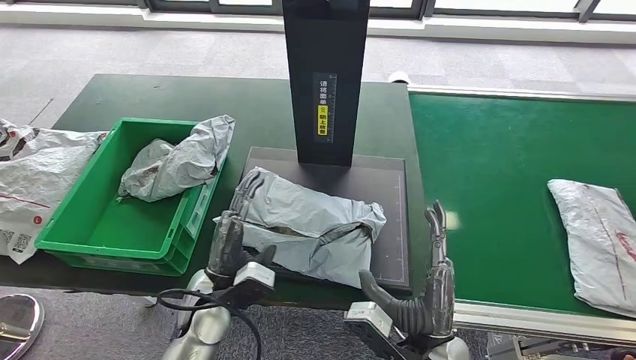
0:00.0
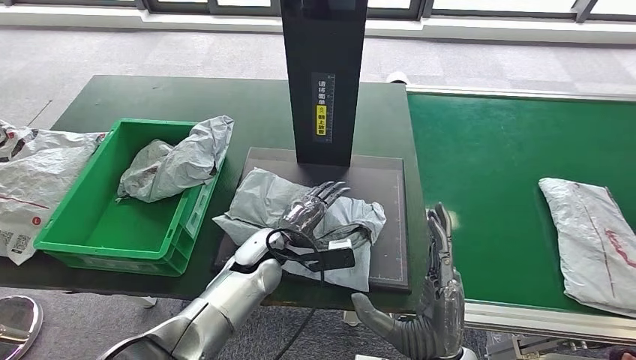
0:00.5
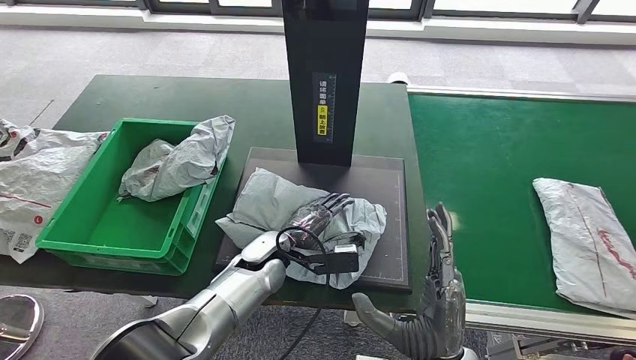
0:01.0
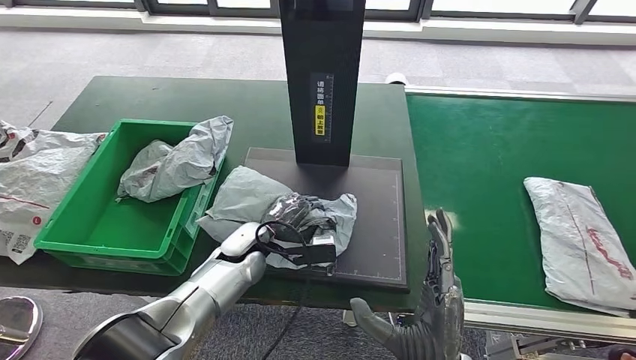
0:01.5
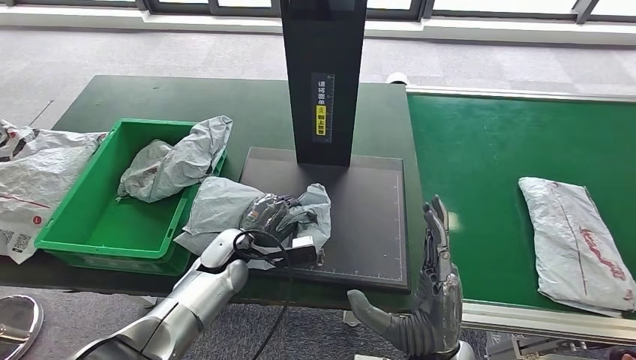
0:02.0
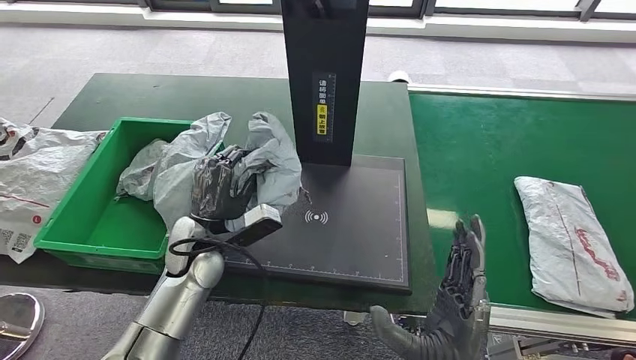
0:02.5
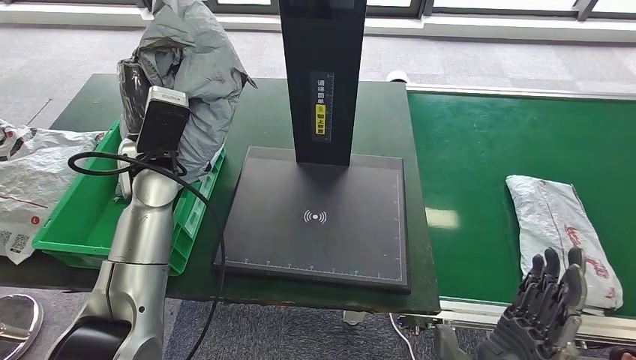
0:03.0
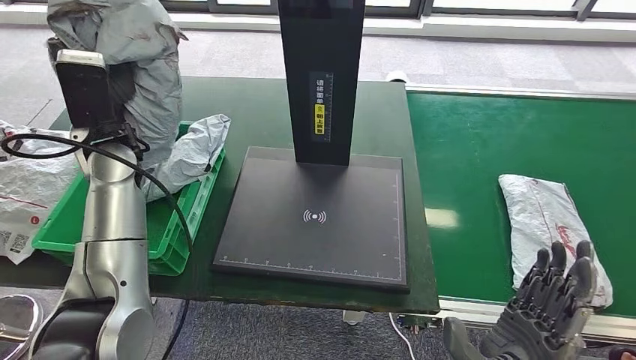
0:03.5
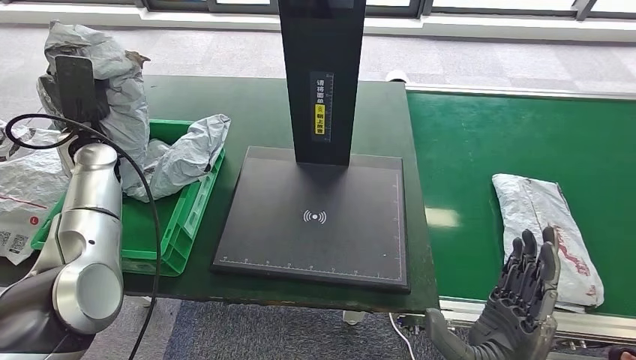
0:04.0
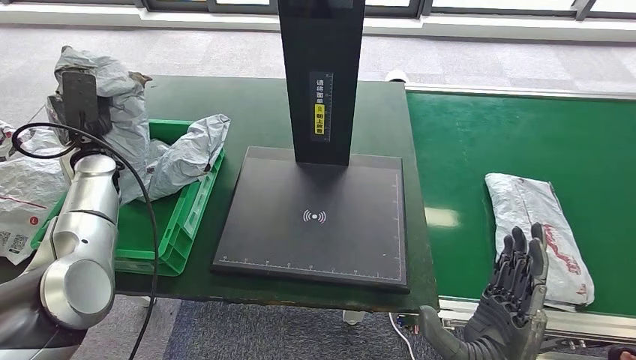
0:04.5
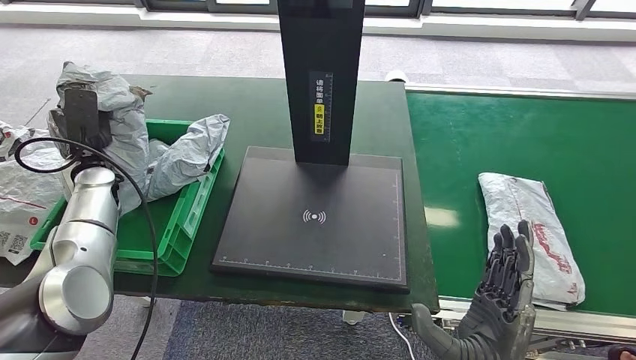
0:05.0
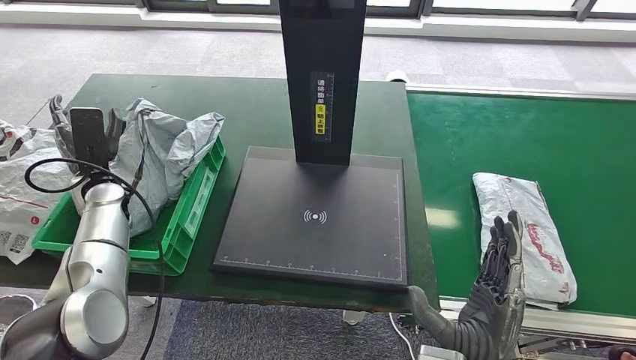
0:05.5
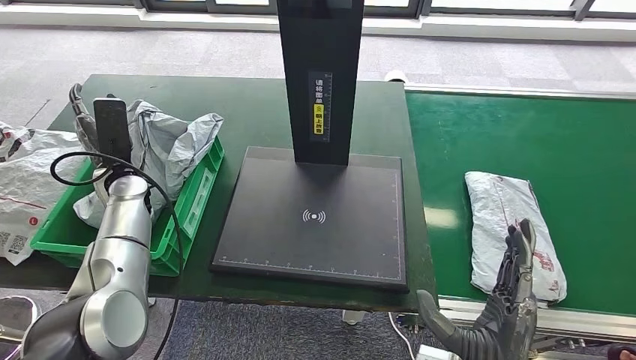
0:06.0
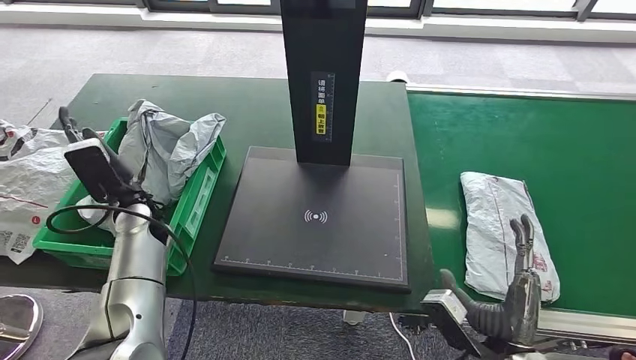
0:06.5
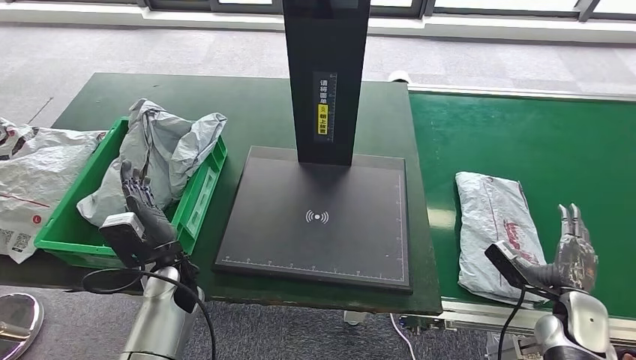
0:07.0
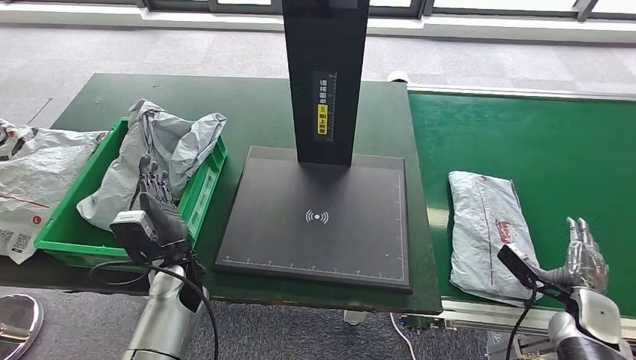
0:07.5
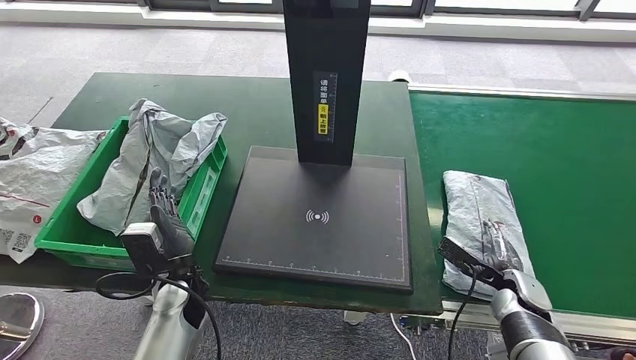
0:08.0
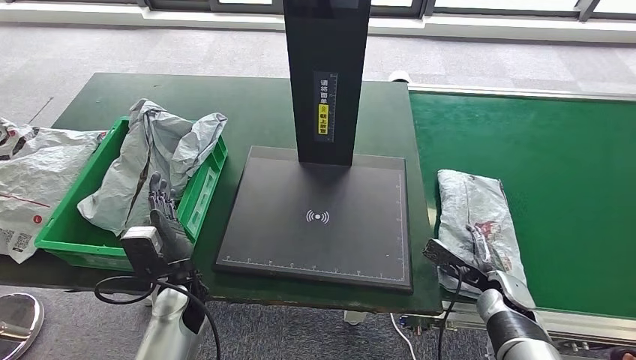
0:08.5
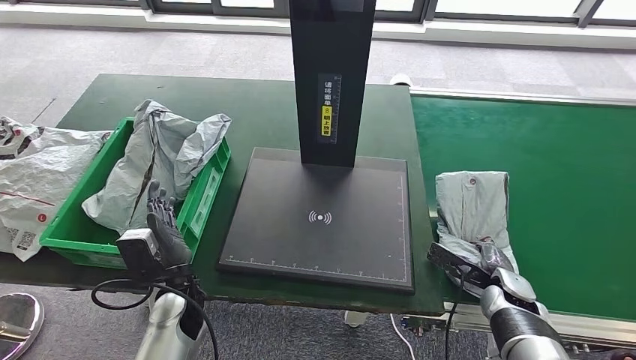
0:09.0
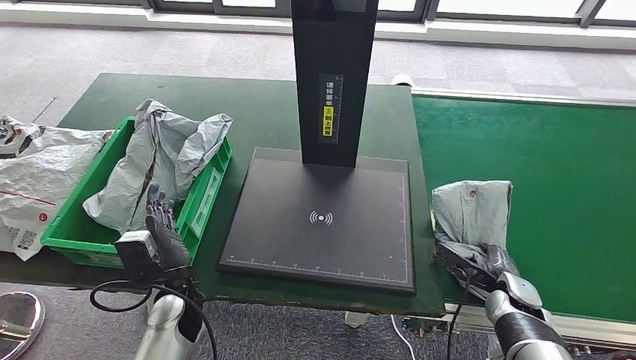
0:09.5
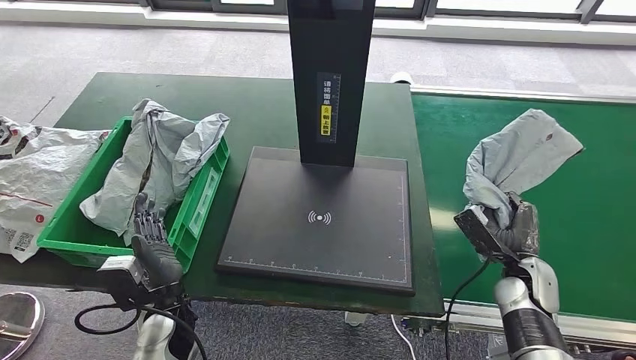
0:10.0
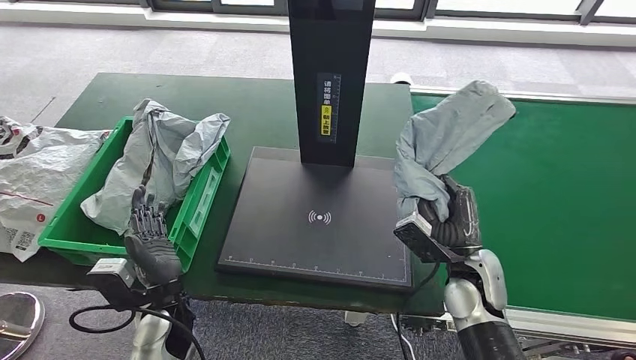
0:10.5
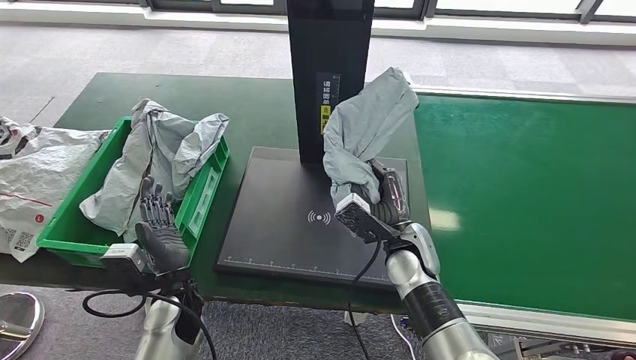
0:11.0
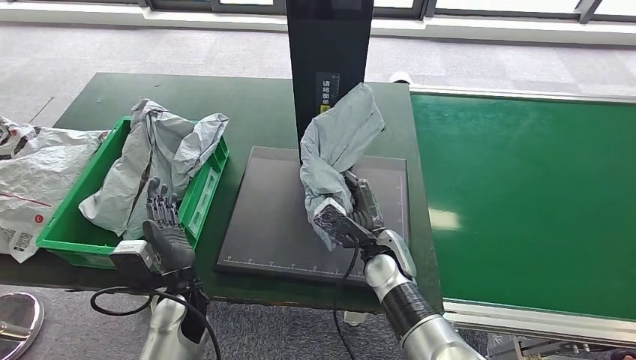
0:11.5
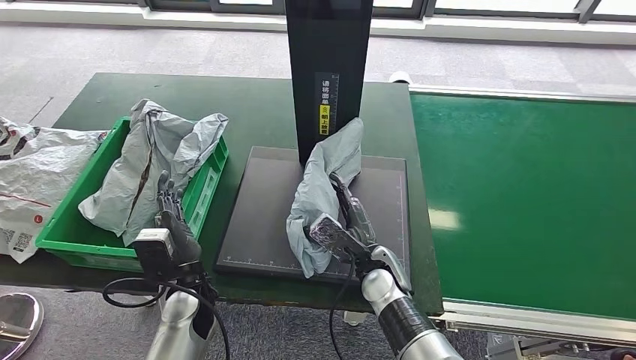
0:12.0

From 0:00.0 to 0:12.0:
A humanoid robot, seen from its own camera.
Step, from 0:00.5 to 0:03.0: Pick up the parcel from the inbound machine.
Step, from 0:03.5 to 0:06.0: Place the parcel into the delivery box.
Step, from 0:06.5 to 0:10.5: Pick up the parcel from the conveyor belt.
From 0:10.0 to 0:12.0: The left hand moves approximately 5 cm, while the right hand is displaced to the left by about 25 cm.

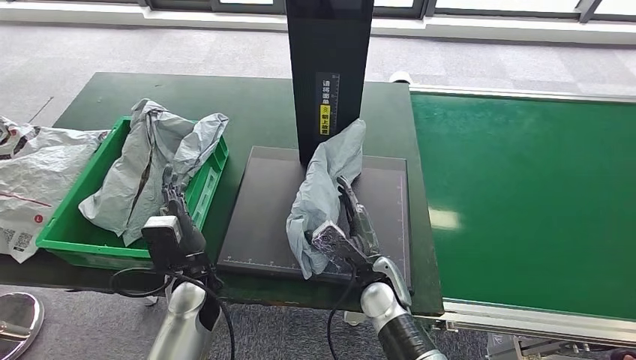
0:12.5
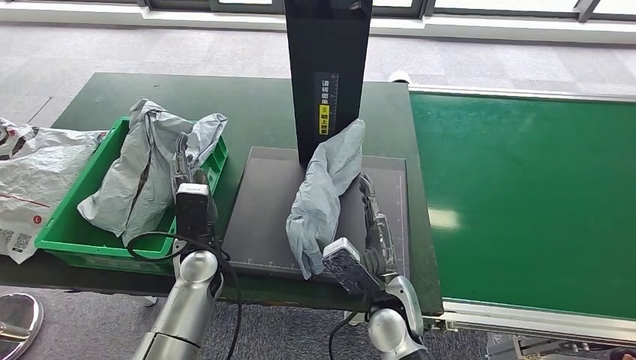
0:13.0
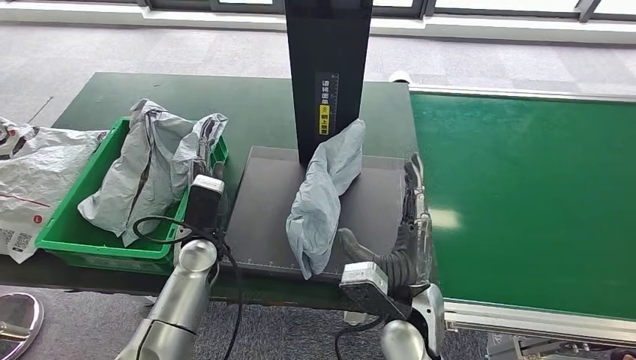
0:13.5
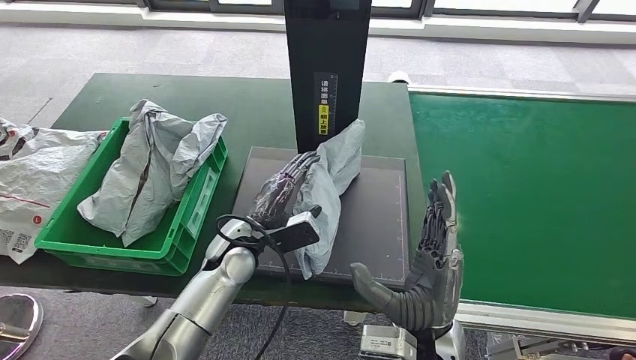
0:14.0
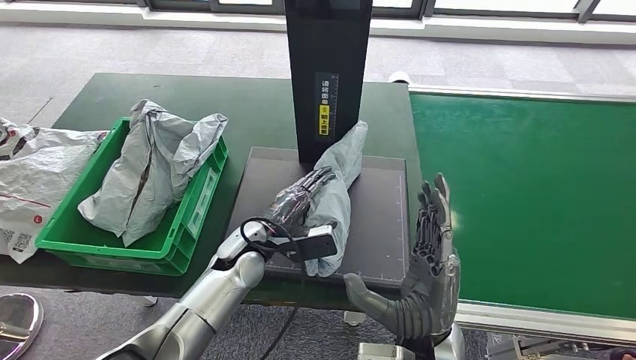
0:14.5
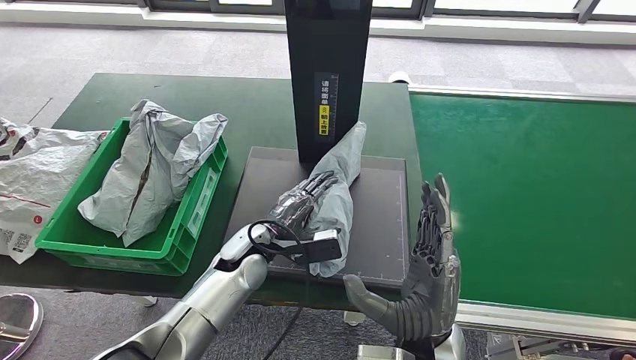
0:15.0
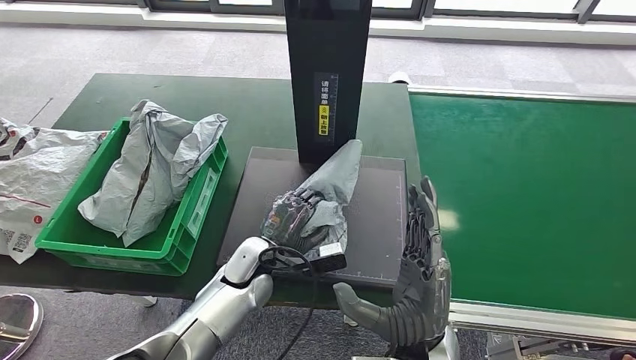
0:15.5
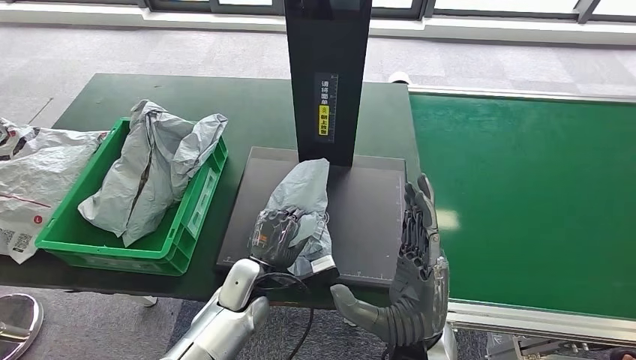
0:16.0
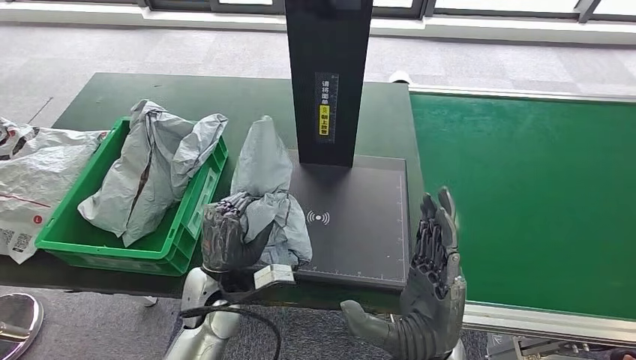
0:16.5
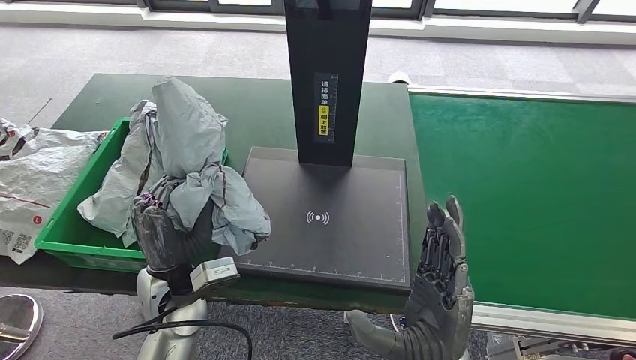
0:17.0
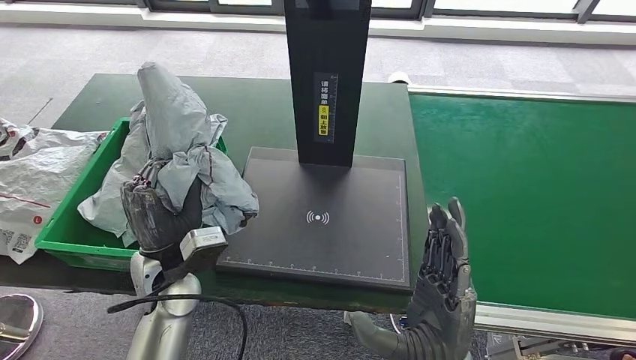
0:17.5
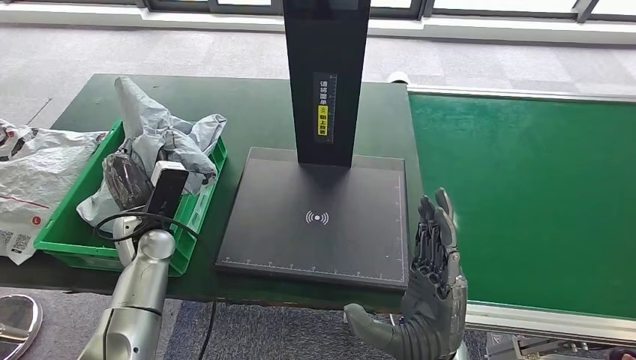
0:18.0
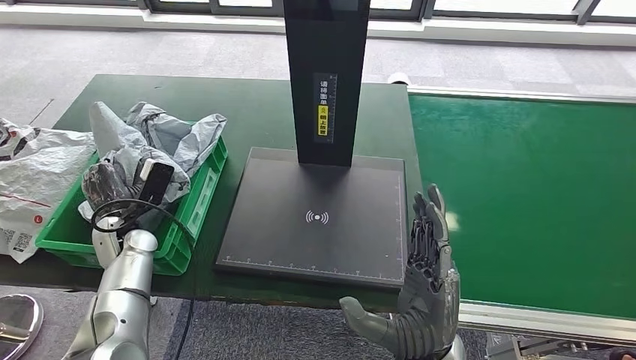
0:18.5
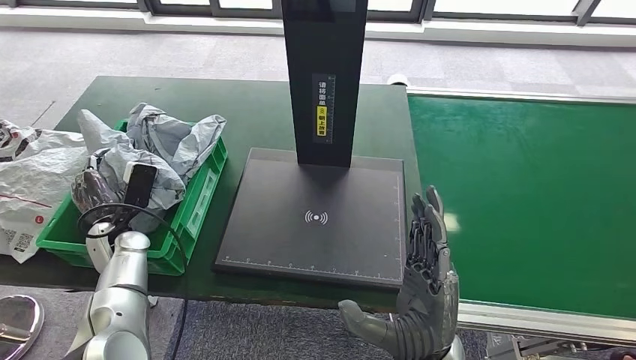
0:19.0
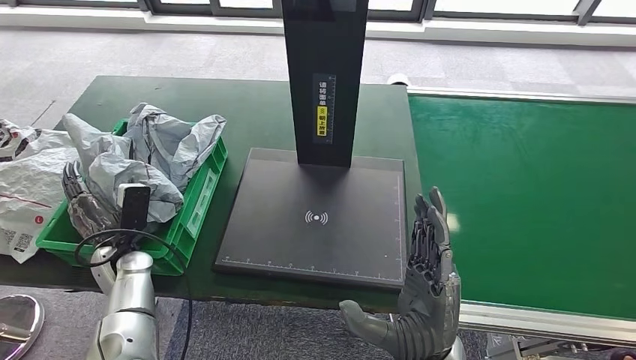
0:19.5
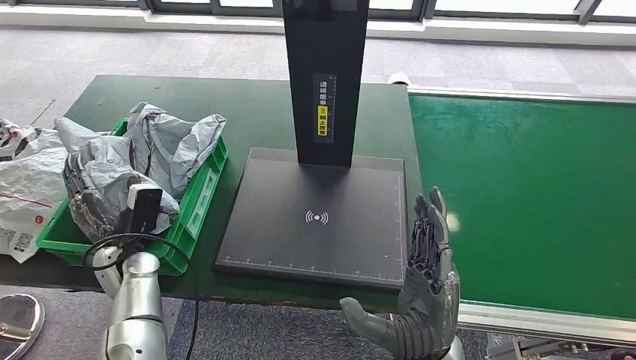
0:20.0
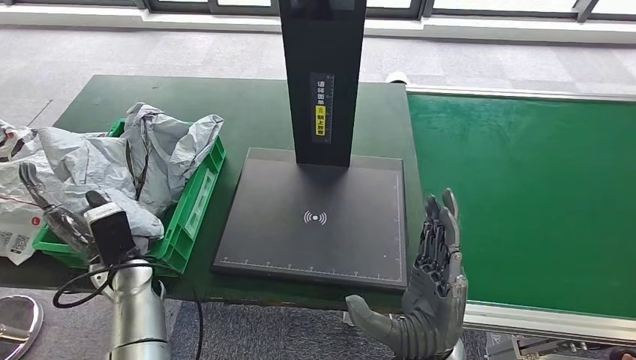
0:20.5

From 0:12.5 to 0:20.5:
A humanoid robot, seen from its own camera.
Step, from 0:14.5 to 0:17.5: Pick up the parcel from the inbound machine.
Step, from 0:18.0 to 0:20.5: Place the parcel into the delivery box.
From 0:12.5 to 0:14.5: The left hand travels to the right and forward by about 10 cm. The right hand goes approximately 15 cm upward and backward.
From 0:14.5 to 0:16.5: The left hand goes roughly 10 cm backward.
From 0:18.5 to 0:20.5: The left hand shifts about 10 cm backward and to the right.
